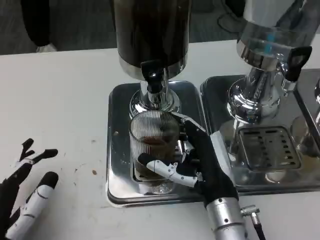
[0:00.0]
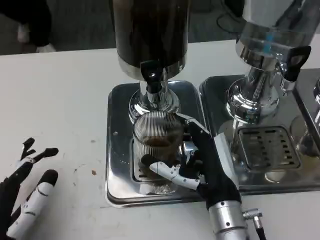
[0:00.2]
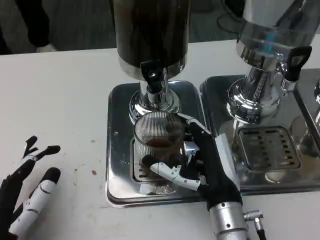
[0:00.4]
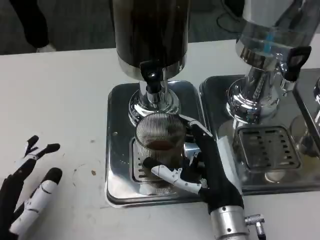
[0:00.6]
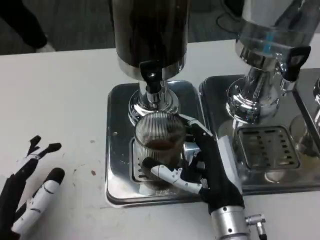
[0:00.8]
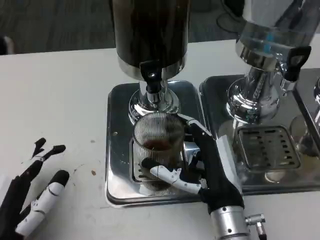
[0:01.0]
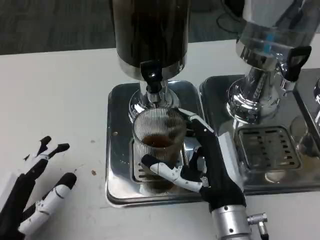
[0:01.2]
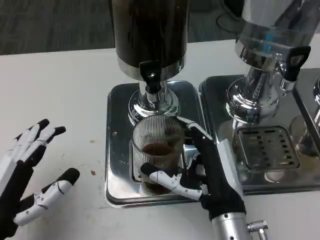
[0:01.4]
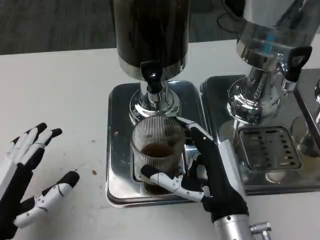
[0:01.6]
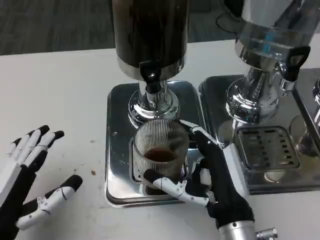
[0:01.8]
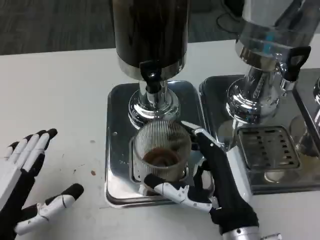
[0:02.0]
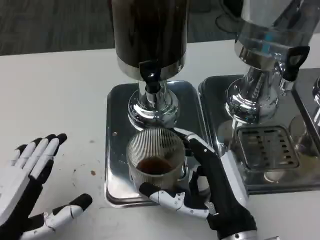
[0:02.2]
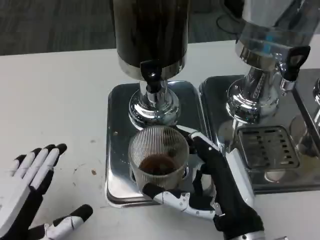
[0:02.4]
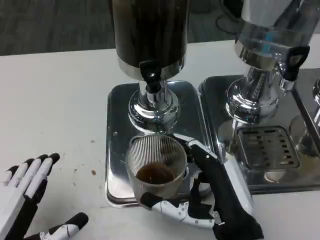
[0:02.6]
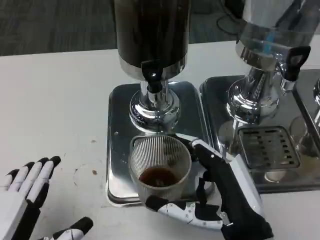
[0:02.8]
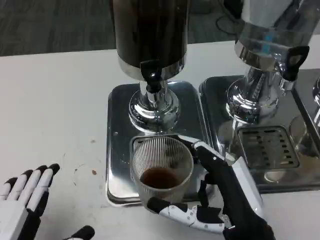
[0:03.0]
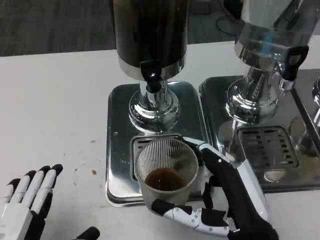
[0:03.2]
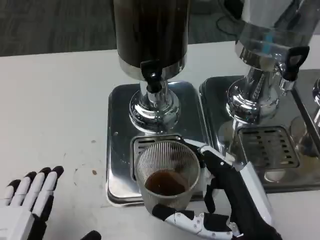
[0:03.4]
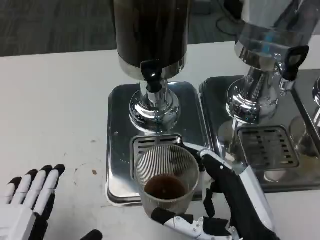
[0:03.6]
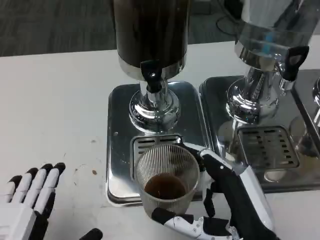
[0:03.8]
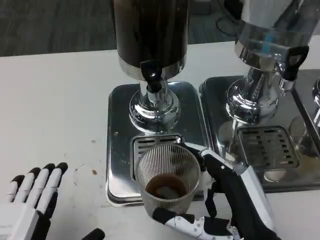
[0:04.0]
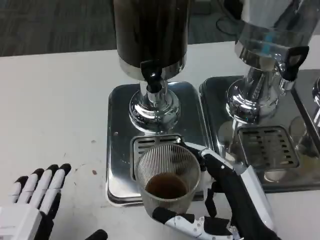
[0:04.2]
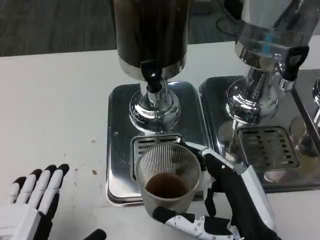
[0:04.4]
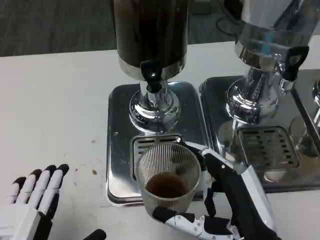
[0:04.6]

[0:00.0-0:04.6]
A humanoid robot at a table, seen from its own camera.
Task of the whole recording: Grasp the cup under the faucet to collect the drink, then remove the cup.
0:01.6 to 0:03.0: The left hand goes approximately 5 cm backward, while the right hand shifts by roughly 5 cm.
0:03.0 to 0:04.6: There are only small adjustments of the hands.

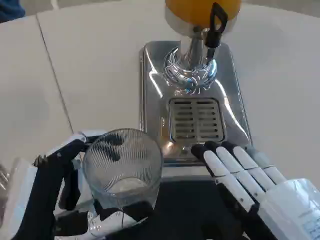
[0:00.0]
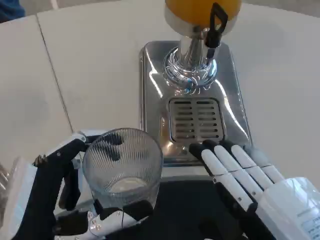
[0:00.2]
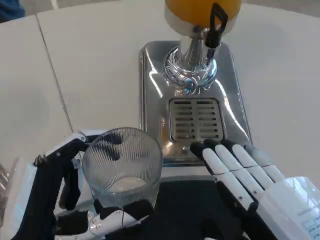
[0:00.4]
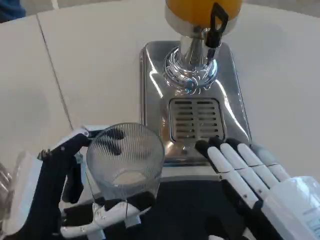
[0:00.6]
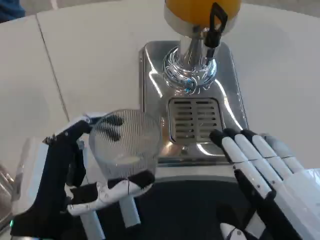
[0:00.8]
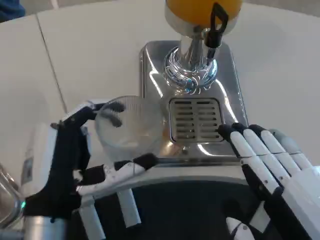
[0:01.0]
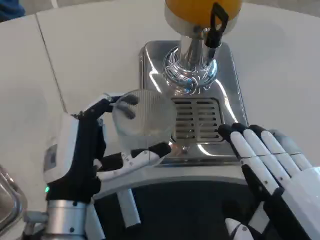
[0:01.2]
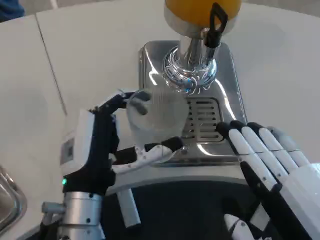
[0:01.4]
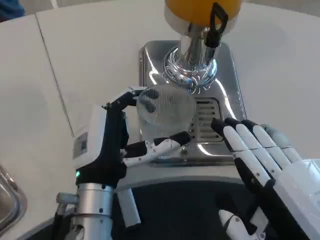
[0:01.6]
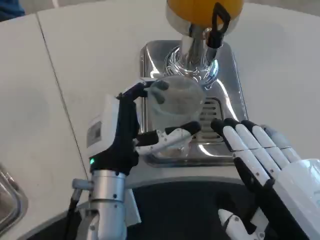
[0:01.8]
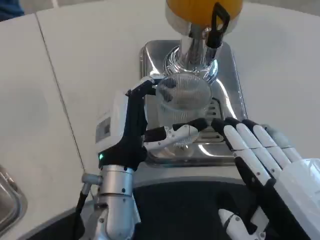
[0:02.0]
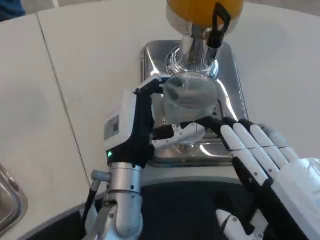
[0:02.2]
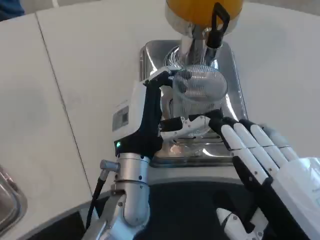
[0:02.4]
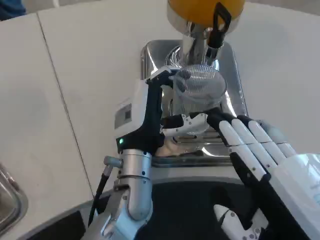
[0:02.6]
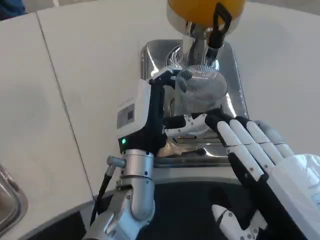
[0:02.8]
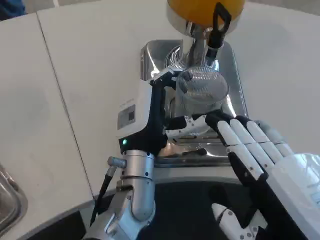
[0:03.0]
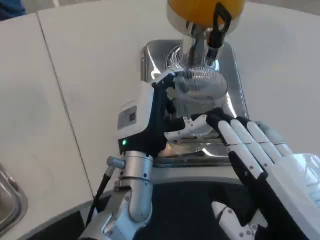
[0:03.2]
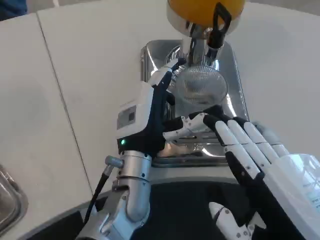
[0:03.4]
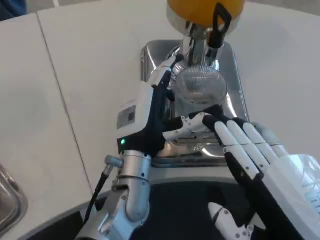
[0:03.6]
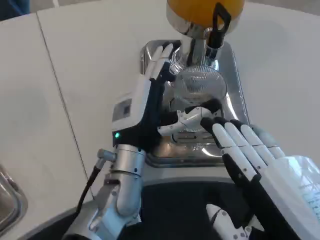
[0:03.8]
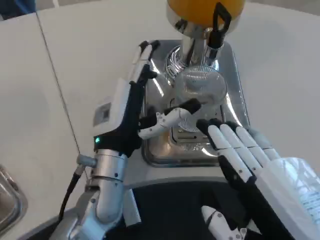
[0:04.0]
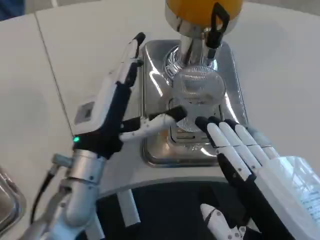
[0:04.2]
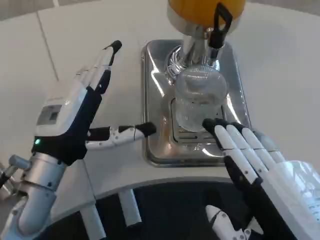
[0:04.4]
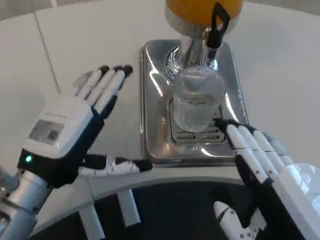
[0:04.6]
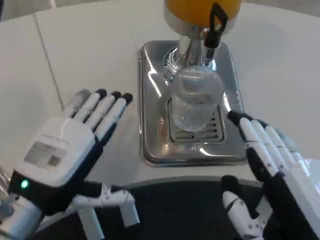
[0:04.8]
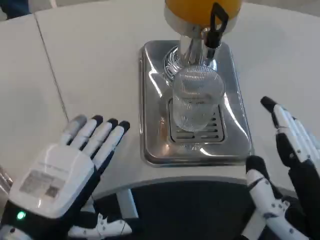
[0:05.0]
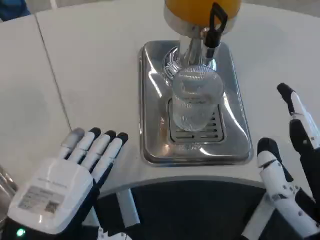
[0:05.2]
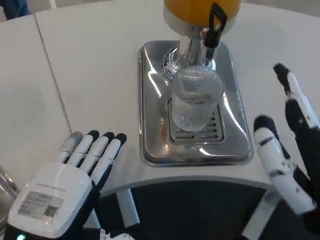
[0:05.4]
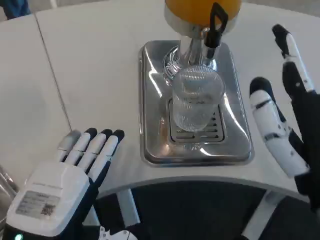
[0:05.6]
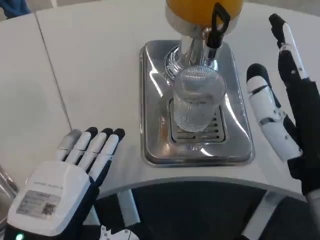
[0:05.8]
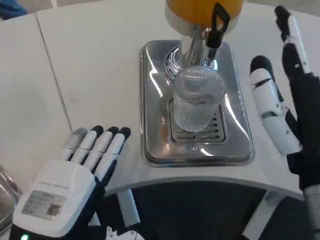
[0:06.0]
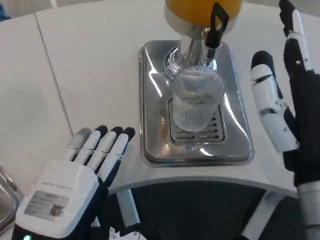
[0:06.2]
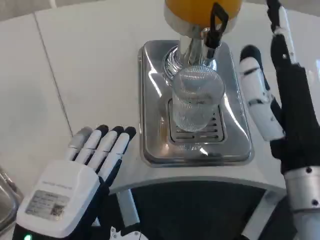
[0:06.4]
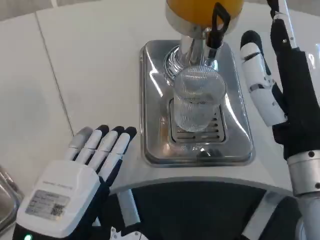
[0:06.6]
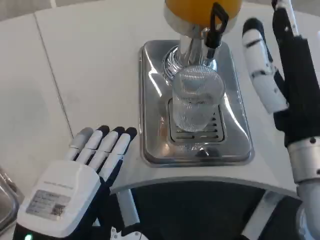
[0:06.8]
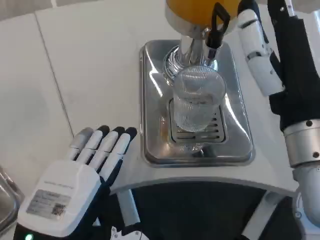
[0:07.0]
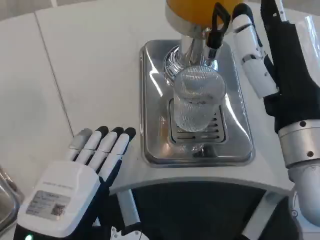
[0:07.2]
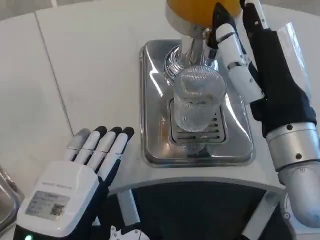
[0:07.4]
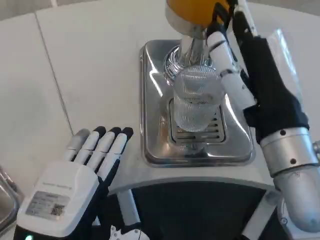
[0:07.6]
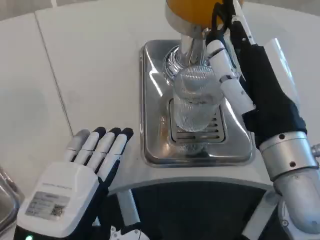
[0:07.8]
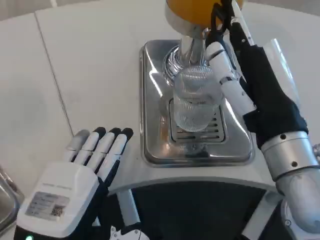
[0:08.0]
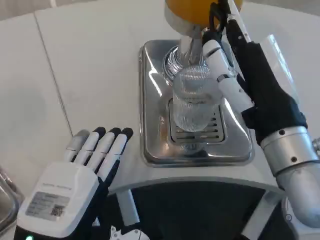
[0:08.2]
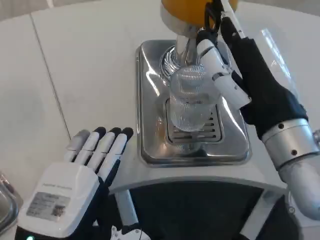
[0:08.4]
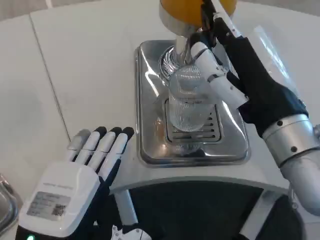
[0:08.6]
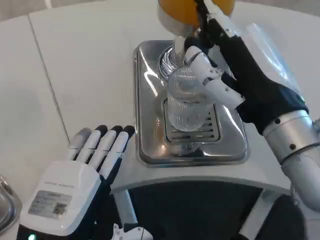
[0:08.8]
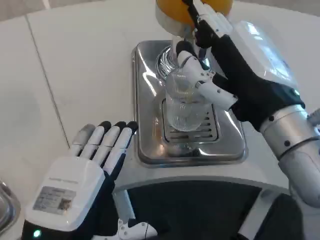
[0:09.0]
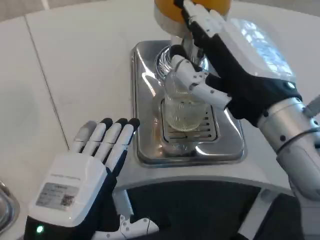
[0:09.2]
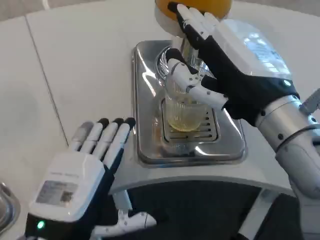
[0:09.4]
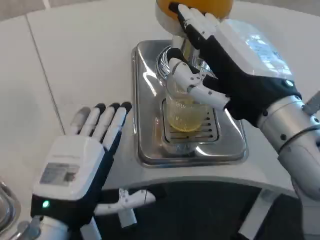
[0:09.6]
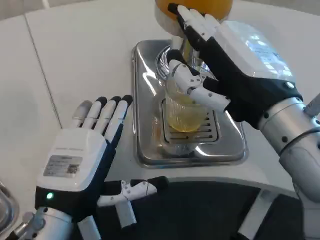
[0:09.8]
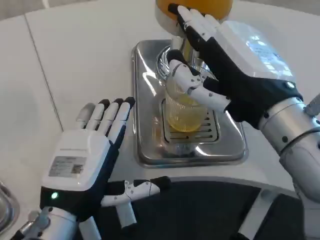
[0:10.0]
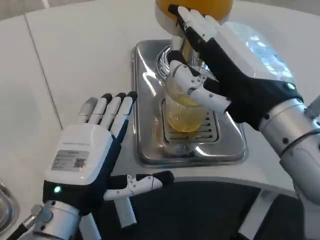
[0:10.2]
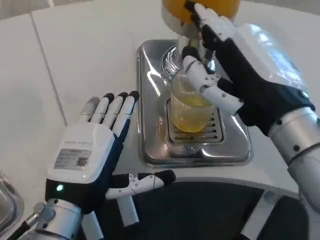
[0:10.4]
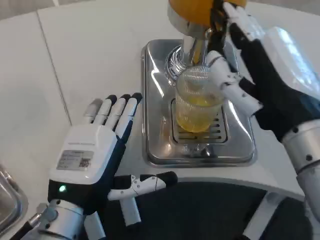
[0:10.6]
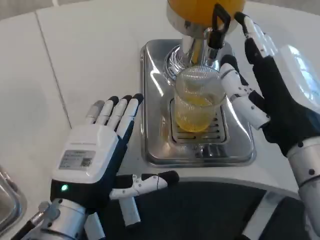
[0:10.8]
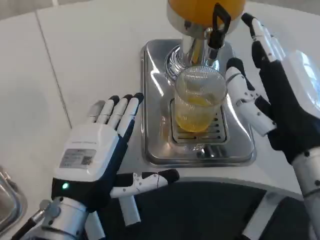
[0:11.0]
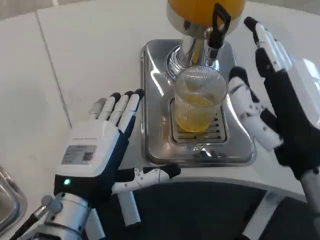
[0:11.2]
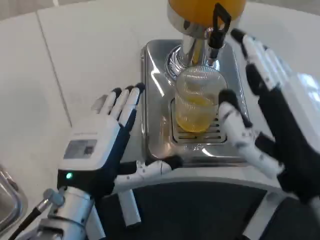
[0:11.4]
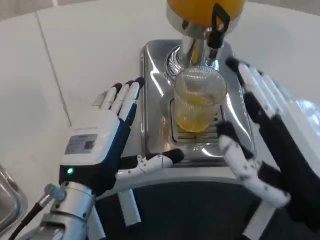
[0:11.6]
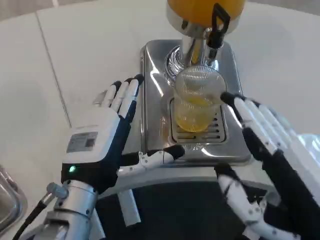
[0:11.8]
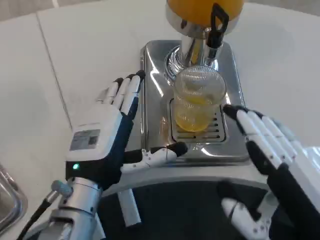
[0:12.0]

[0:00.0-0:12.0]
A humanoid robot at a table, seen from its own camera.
Task of the whole recording: Grasp the cup under the faucet to collect the drink, then remove the cup.
0:00.0 to 0:01.6: The left hand shifts approximately 15 cm forward and to the right.
0:01.6 to 0:03.0: The left hand goes roughly 10 cm forward and to the right.
0:03.0 to 0:04.4: The left hand heads to the left, covering about 15 cm.
0:04.4 to 0:06.0: The left hand heads backward, covering roughly 15 cm; the right hand is displaced forward by approximately 5 cm.
0:06.0 to 0:07.6: The right hand moves forward, some 5 cm.
0:09.0 to 0:10.4: The left hand heads forward, covering about 5 cm.
0:10.4 to 0:12.0: The right hand is displaced backward and downward by approximately 15 cm.

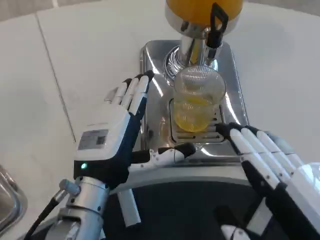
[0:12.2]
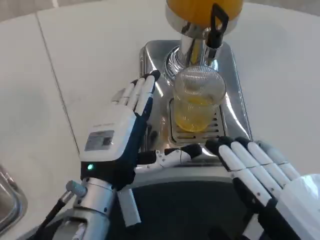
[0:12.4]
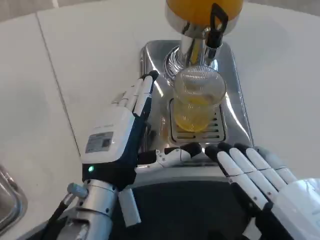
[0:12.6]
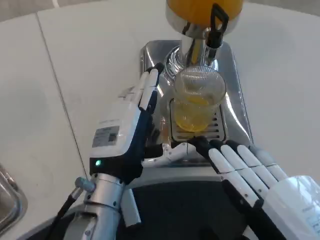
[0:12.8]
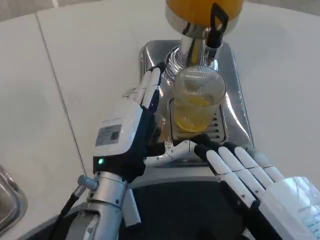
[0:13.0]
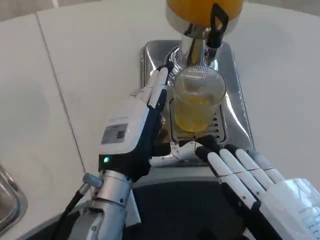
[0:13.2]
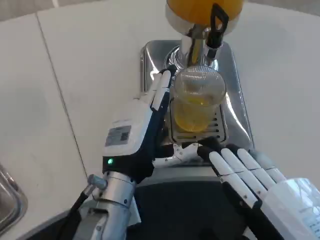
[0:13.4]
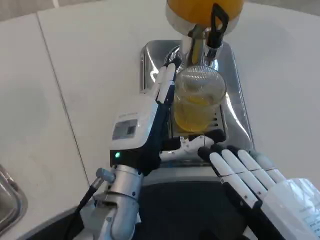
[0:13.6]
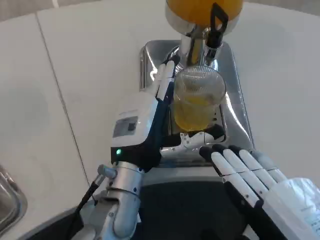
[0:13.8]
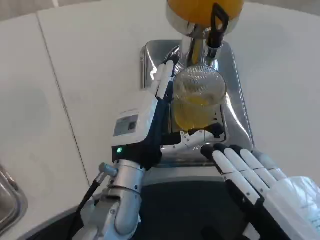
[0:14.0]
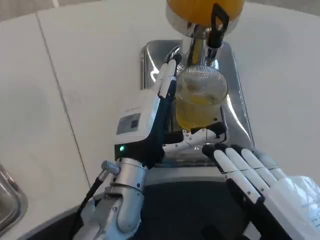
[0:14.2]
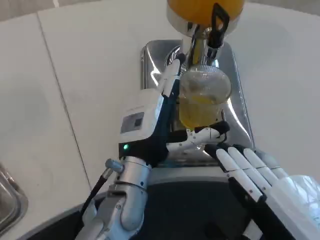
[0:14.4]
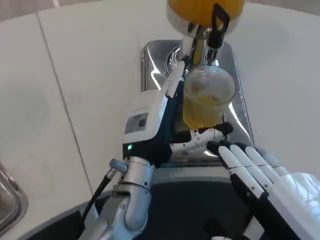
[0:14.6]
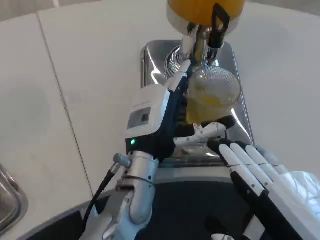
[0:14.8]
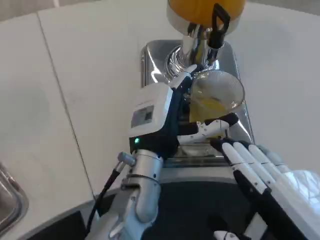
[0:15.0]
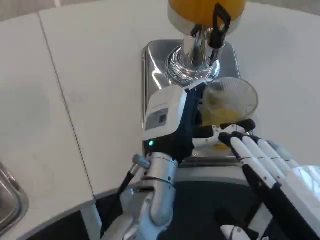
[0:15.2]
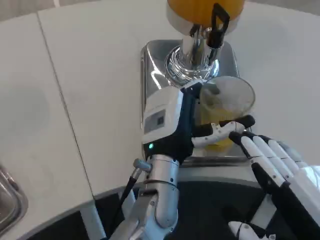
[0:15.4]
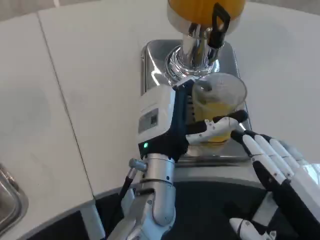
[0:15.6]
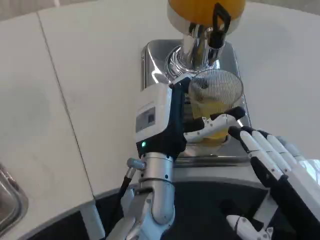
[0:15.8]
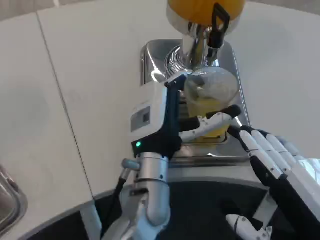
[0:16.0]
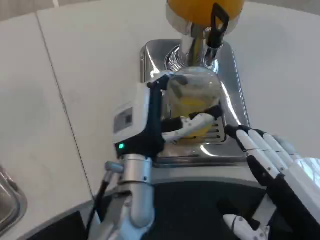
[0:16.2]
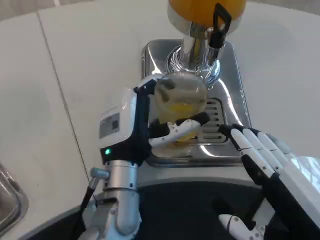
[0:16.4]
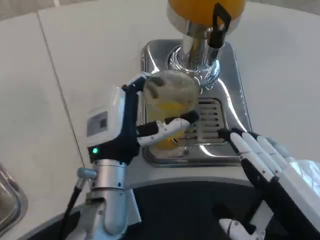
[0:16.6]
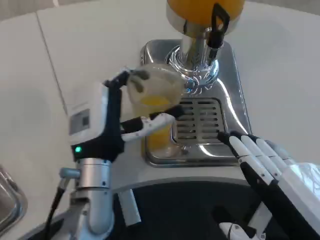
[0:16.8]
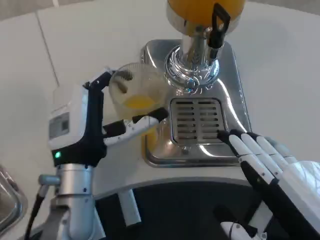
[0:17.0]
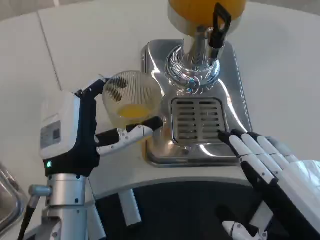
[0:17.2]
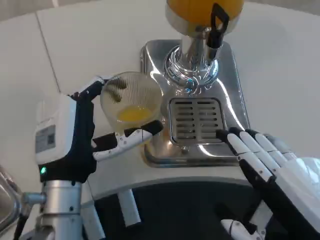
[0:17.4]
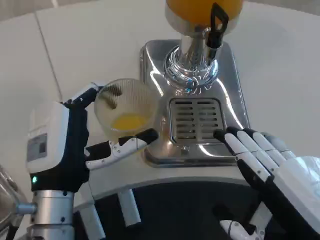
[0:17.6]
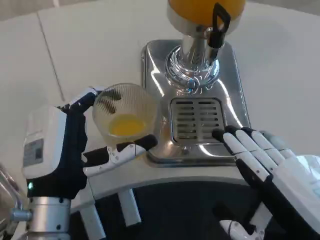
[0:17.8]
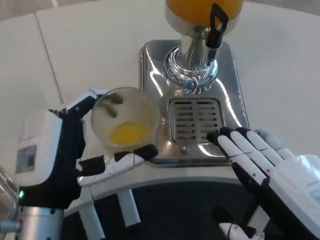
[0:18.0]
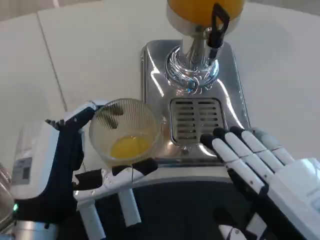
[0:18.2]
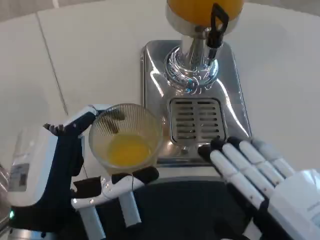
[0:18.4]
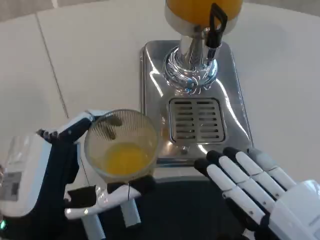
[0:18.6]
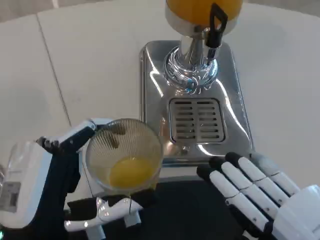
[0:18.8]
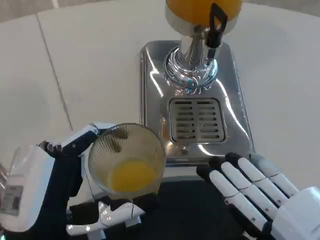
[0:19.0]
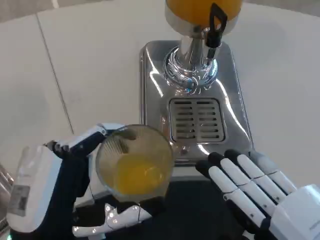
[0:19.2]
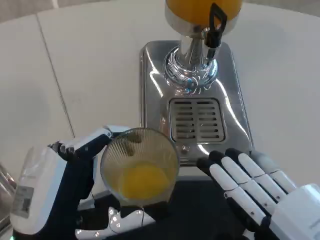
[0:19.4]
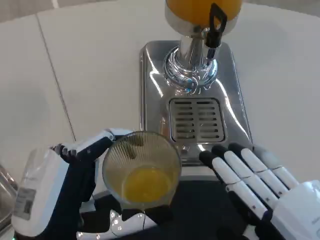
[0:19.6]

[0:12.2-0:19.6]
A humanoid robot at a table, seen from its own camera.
Task of the whole recording: Grasp the cup under the faucet to collect the drink, then remove the cup.
0:12.2 to 0:13.6: The left hand ends up approximately 5 cm from where it was.
0:13.6 to 0:15.2: The left hand goes roughly 5 cm to the right.
0:15.2 to 0:16.6: The left hand is displaced to the left by approximately 5 cm.
0:16.6 to 0:18.2: The left hand goes approximately 15 cm backward and to the left.
